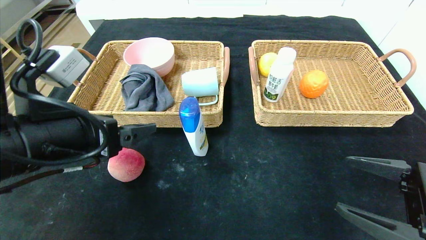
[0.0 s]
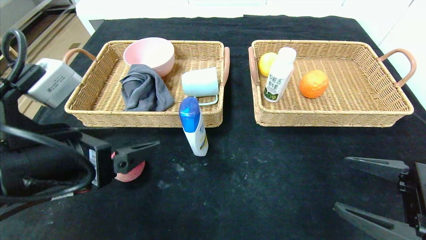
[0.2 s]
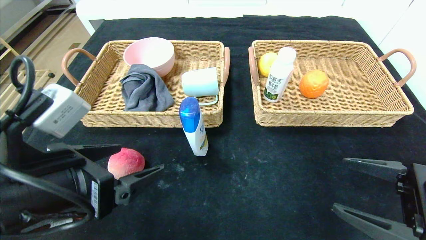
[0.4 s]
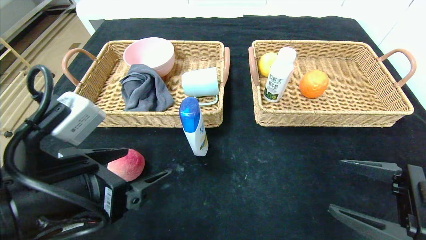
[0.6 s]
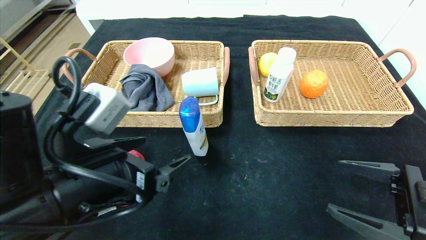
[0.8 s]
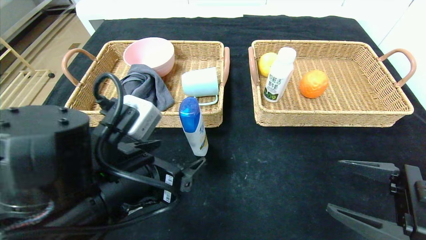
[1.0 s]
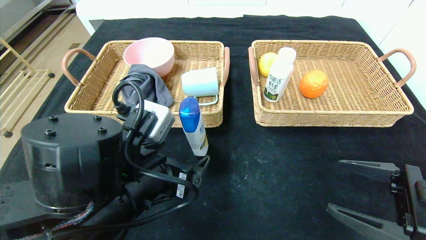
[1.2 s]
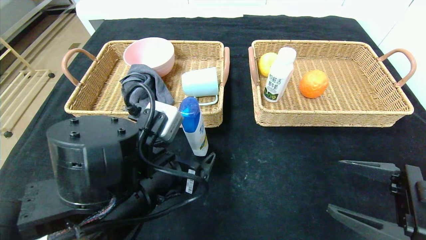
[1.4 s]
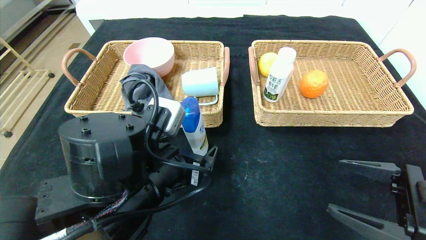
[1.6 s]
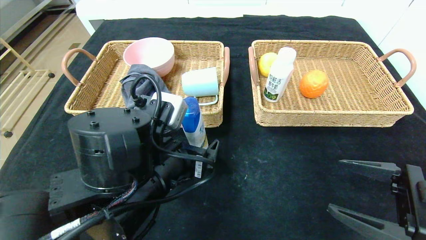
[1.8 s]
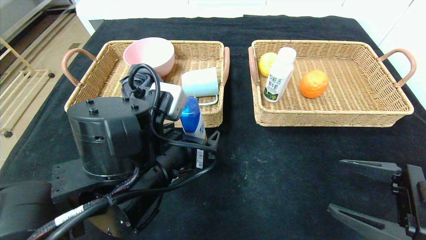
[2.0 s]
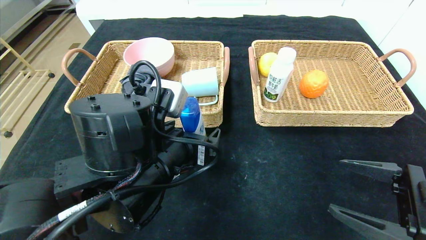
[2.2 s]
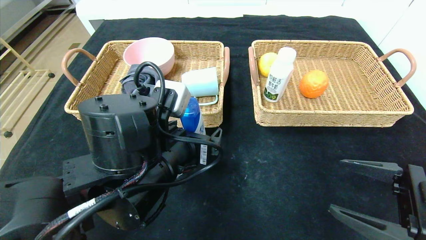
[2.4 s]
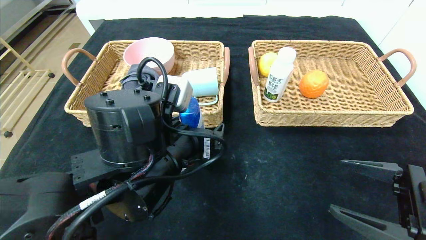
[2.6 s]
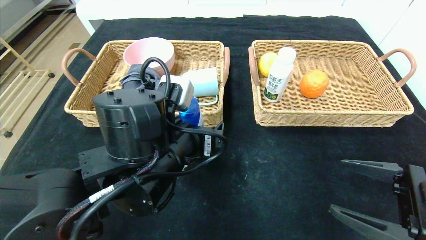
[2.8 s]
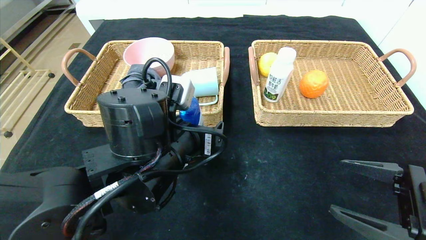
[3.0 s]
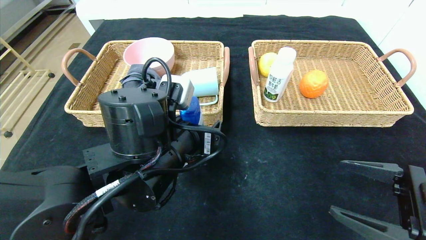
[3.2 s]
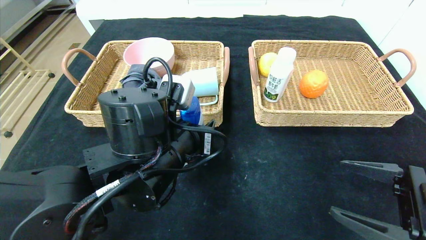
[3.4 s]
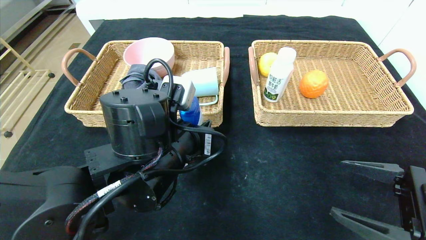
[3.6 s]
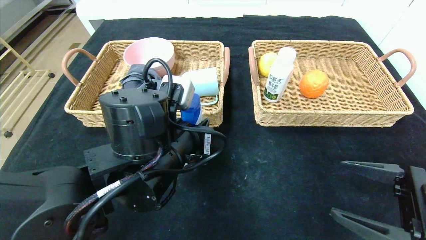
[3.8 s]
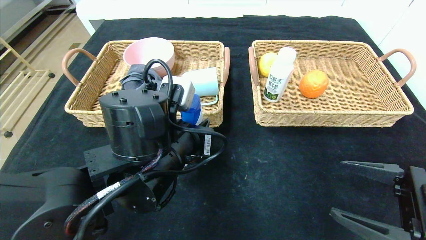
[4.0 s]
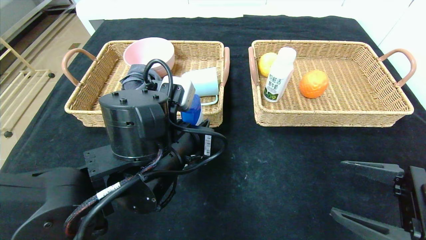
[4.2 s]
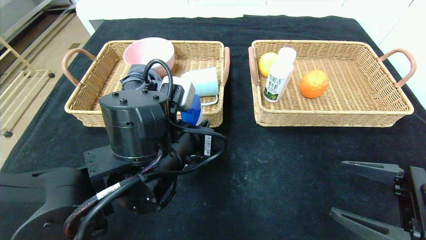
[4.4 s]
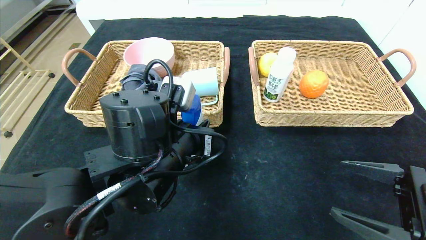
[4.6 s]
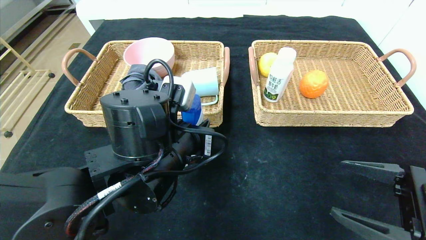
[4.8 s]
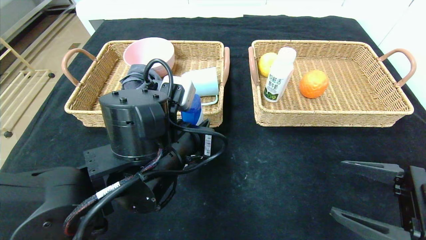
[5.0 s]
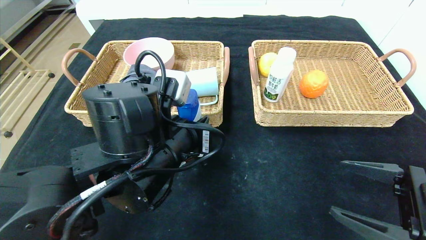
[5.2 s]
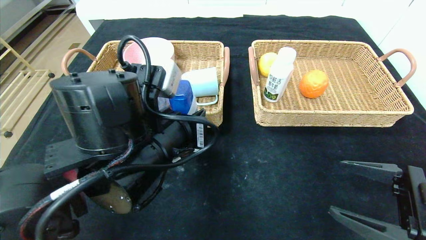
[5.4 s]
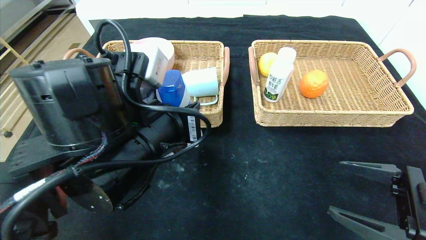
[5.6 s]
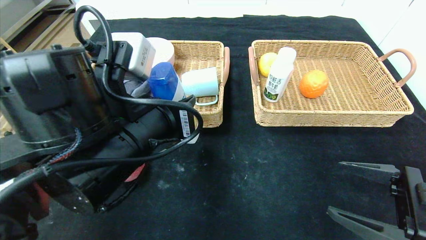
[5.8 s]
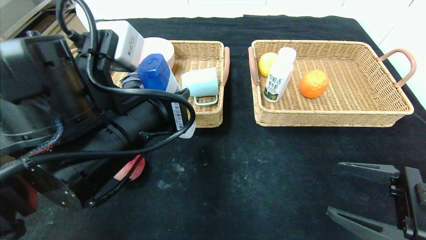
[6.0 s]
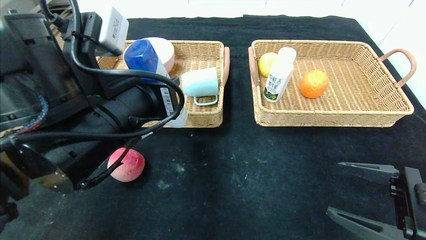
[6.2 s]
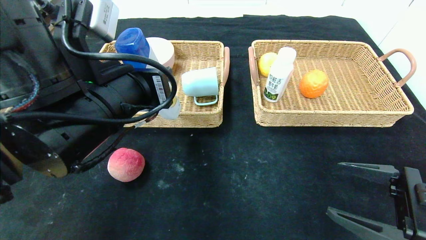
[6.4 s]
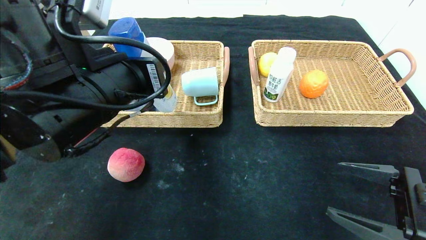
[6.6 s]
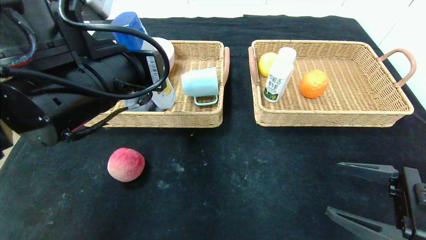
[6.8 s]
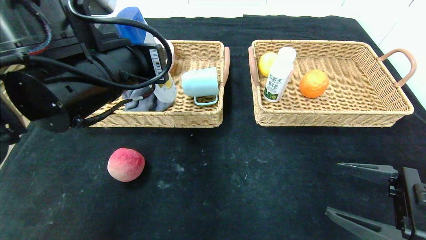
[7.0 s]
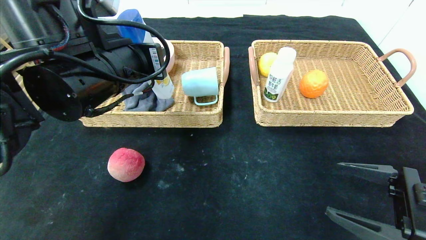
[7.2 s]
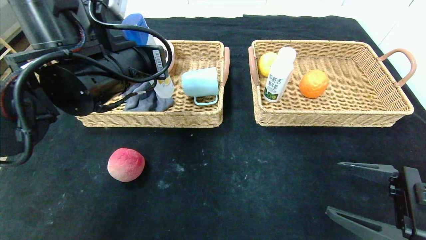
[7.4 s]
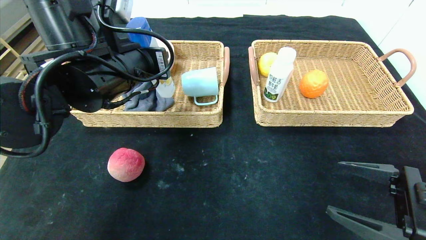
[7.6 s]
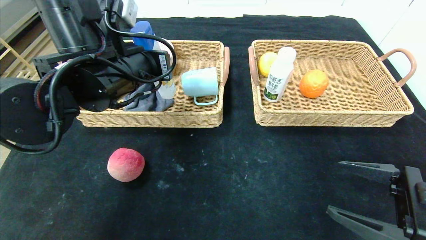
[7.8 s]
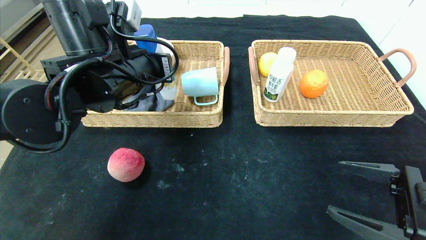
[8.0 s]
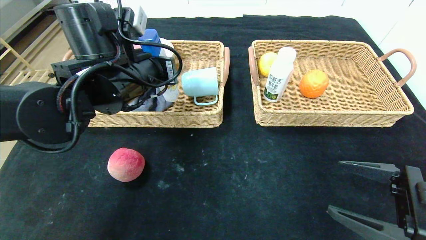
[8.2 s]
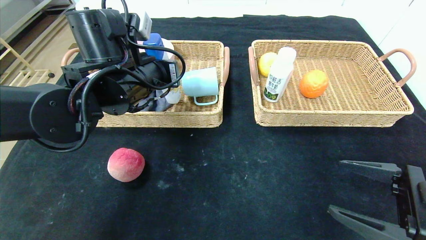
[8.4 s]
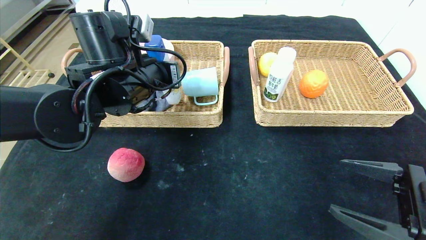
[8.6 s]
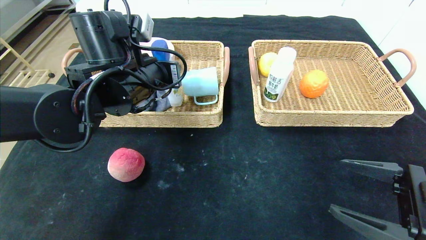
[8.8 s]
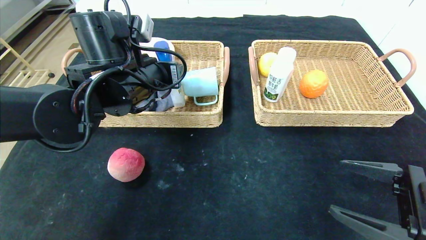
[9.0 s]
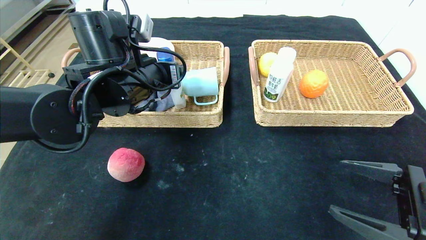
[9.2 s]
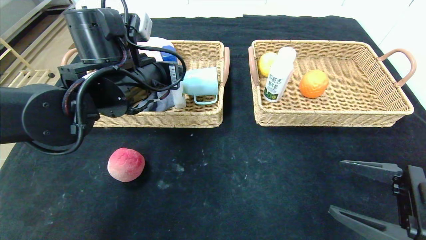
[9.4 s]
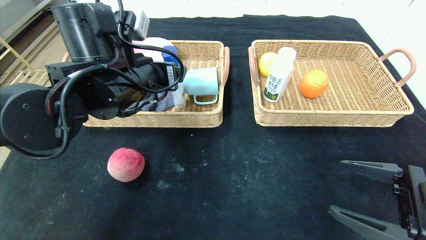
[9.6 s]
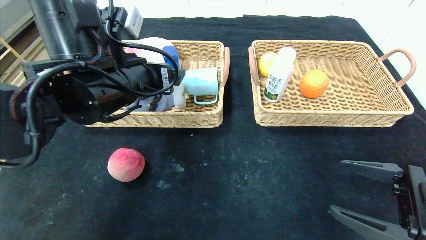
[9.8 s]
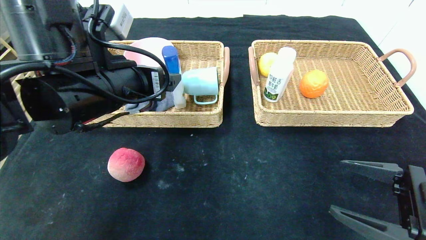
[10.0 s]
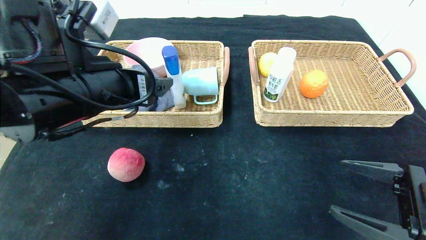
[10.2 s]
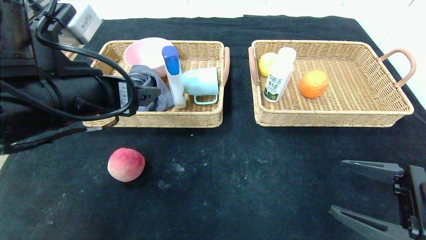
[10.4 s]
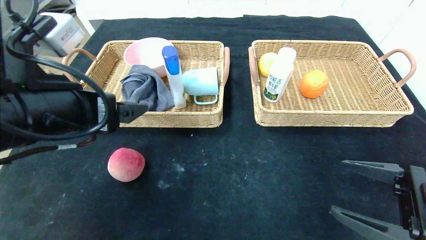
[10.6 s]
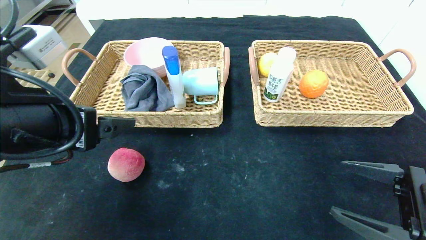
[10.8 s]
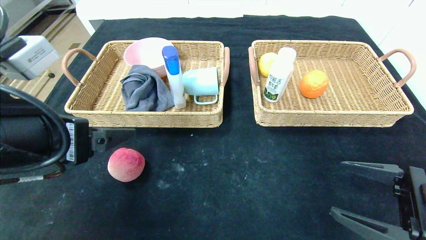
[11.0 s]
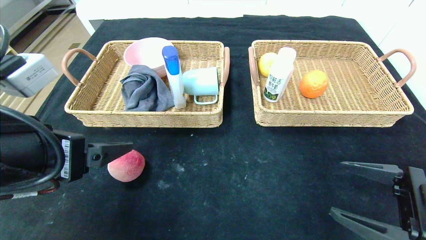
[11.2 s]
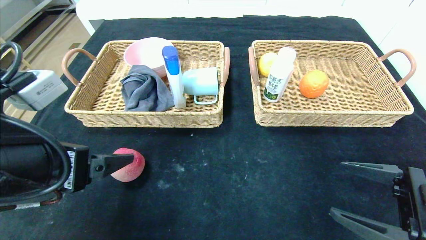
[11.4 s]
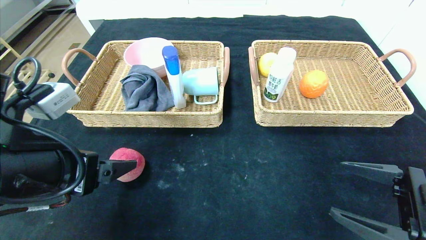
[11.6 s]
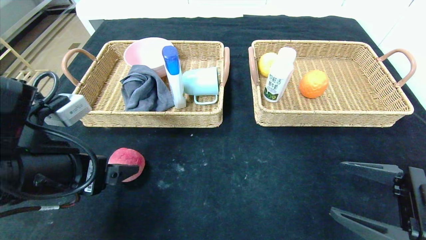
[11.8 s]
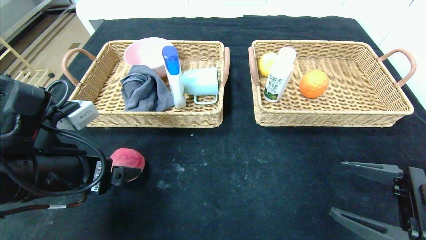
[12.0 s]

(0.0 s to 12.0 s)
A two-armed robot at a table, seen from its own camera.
Step, 0.0 s - 9.2 s: Grasp the shampoo and put it in the left basket.
0.0 s - 1.6 s: The left gripper travels to the right and downward by roughly 15 cm.
1.6 s - 3.0 s: The grippers move only a little.
3.0 s - 4.4 s: The left gripper closes up.
4.4 s - 6.0 s: The left gripper moves upward, roughly 5 cm.
6.0 s - 7.6 s: The left gripper heads forward, covering roughly 10 cm.
7.6 s - 9.0 s: The grippers make only small movements.
9.0 s - 10.4 s: The left gripper travels backward by some 10 cm.
10.4 s - 12.0 s: The left gripper shifts some 5 cm downward.

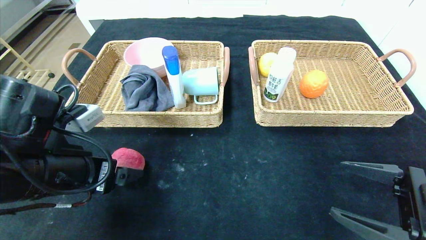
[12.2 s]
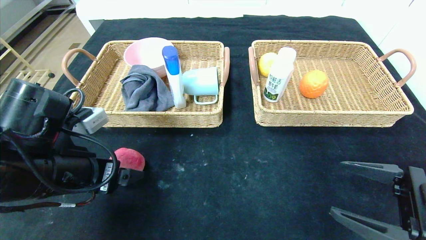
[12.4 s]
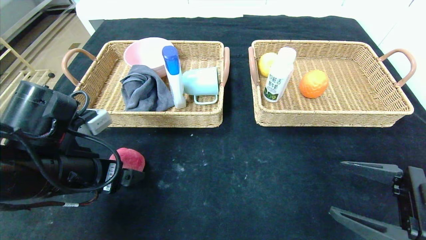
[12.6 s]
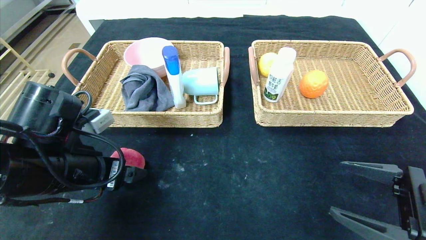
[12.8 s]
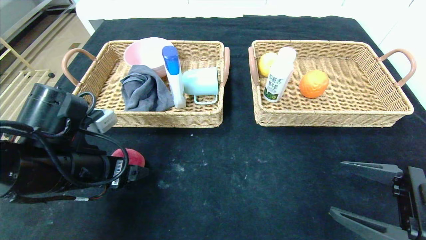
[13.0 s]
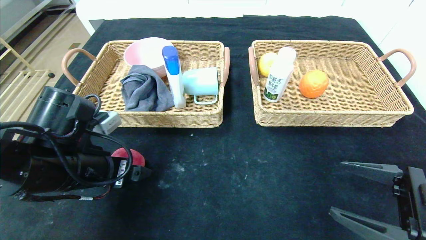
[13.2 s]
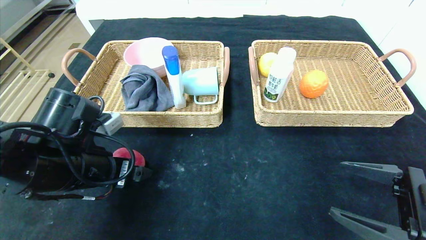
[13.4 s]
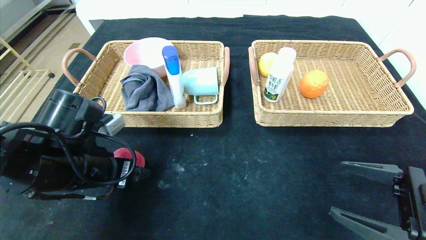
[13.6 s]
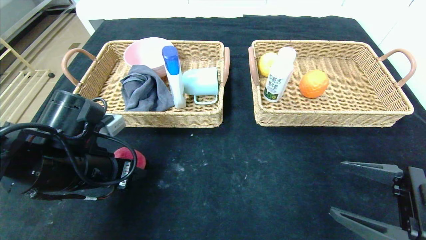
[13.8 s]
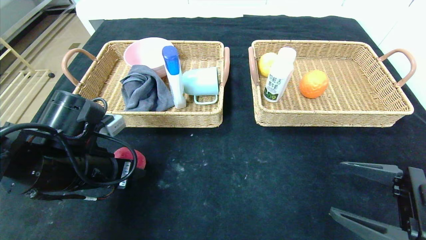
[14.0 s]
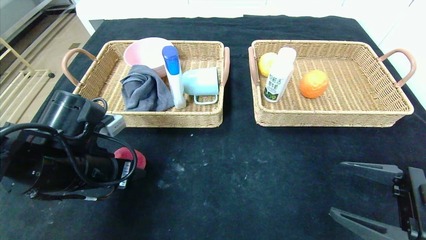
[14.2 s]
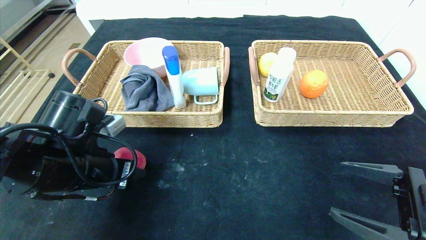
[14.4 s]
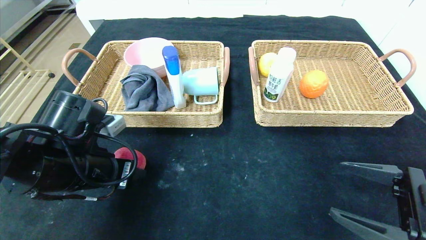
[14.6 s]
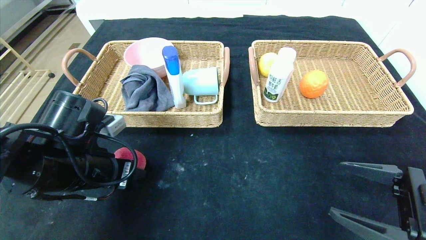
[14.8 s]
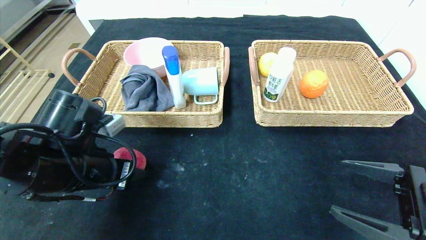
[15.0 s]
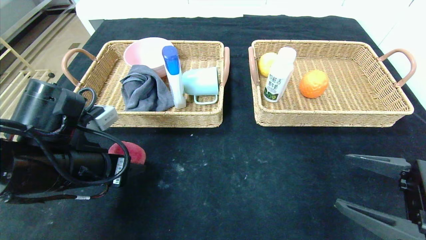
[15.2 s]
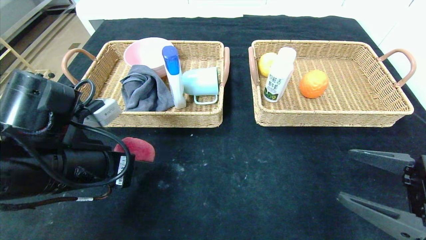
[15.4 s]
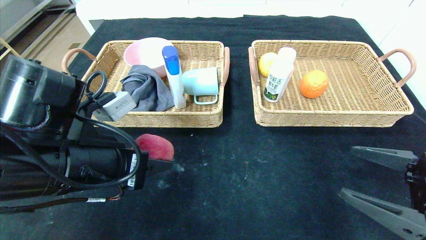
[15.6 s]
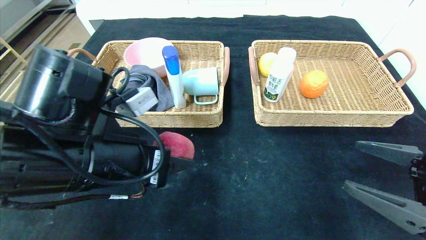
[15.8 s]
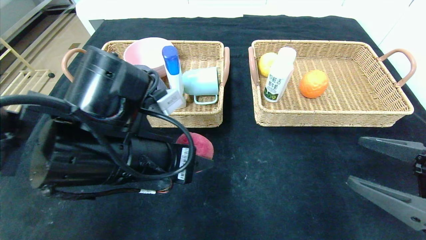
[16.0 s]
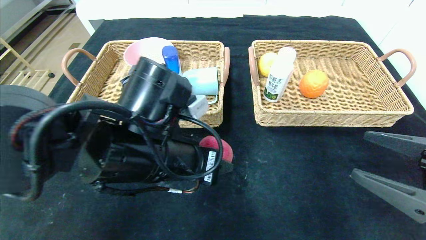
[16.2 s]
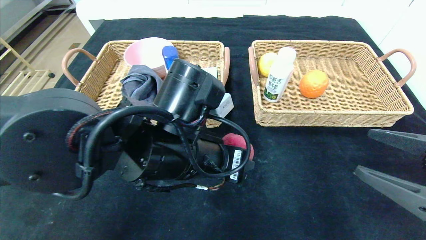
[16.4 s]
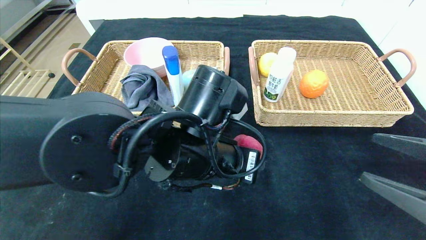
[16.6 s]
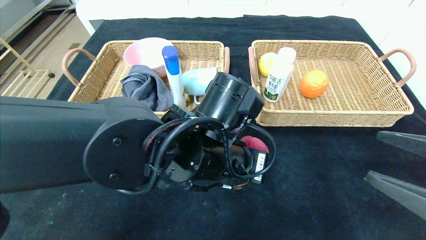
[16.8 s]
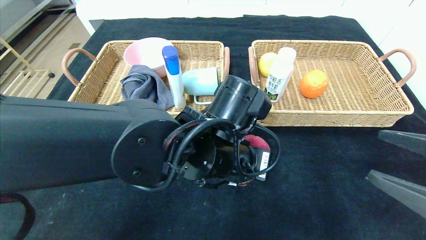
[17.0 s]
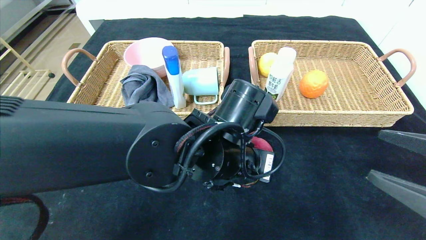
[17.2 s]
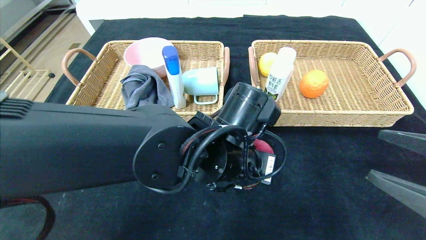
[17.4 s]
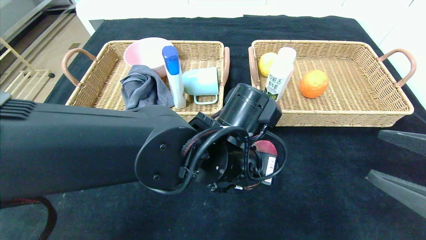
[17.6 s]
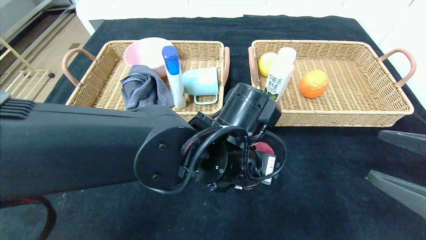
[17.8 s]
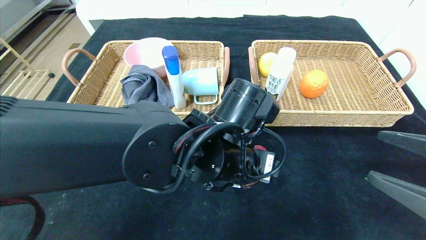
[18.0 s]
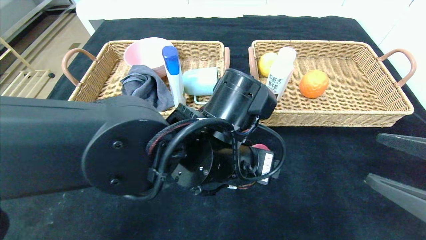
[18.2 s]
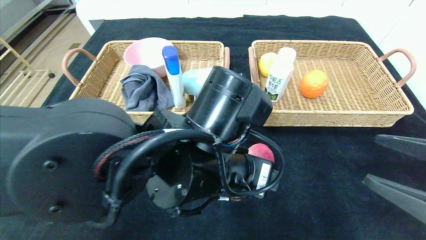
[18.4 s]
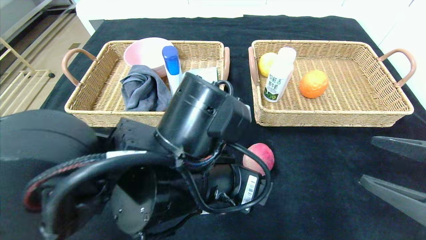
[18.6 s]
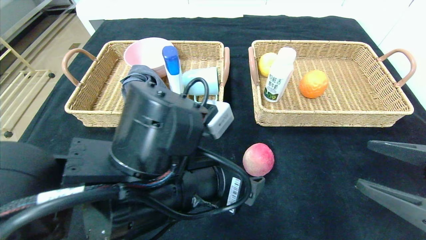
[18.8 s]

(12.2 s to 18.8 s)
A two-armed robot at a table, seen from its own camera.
Step, 12.2 s - 18.2 s: Place the peach in the center of the table.
12.2 s - 13.8 s: The left gripper closes up.
13.8 s - 15.4 s: The grippers move only a little.
15.4 s - 17.2 s: The left gripper travels to the right by approximately 20 cm.
17.2 s - 18.8 s: The left gripper shifts some 10 cm backward and to the left, and opens up.
